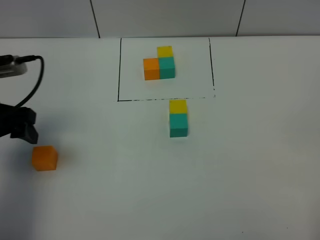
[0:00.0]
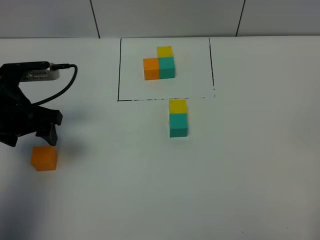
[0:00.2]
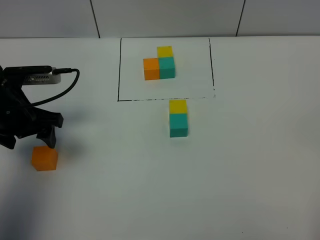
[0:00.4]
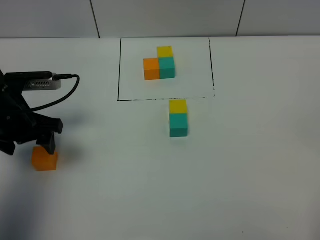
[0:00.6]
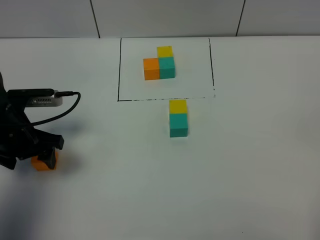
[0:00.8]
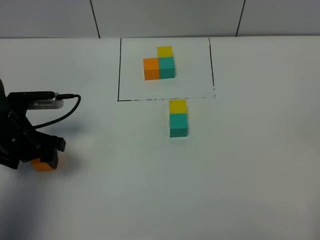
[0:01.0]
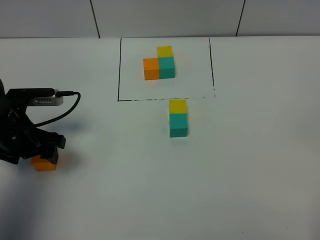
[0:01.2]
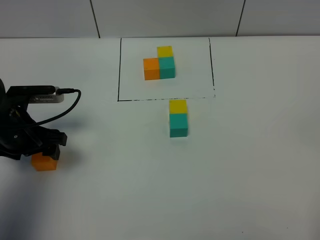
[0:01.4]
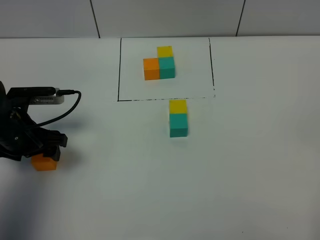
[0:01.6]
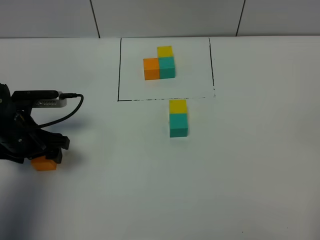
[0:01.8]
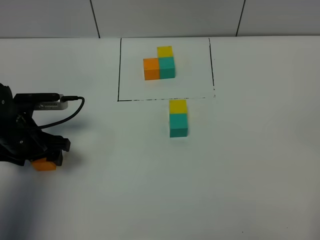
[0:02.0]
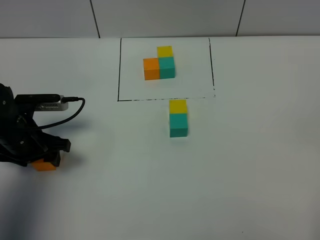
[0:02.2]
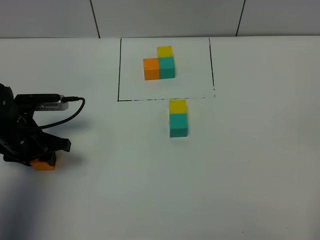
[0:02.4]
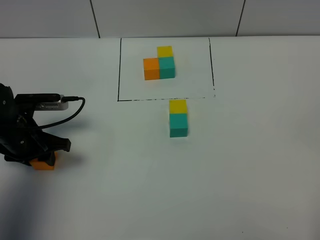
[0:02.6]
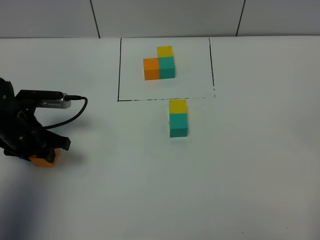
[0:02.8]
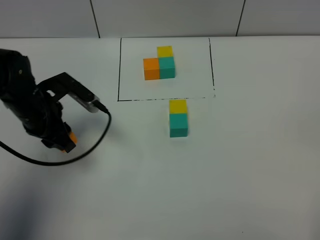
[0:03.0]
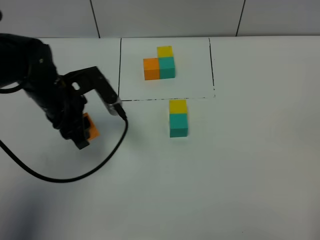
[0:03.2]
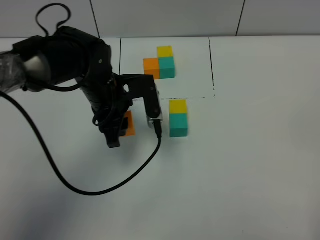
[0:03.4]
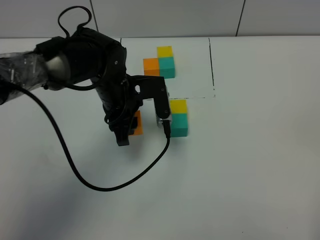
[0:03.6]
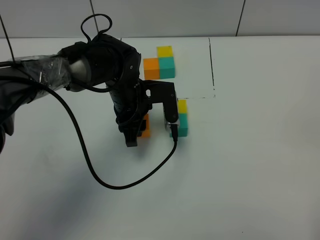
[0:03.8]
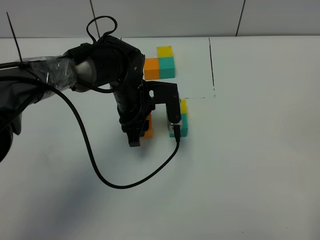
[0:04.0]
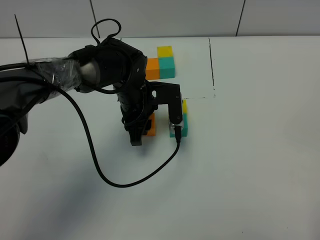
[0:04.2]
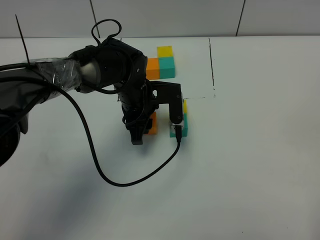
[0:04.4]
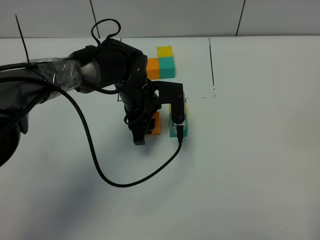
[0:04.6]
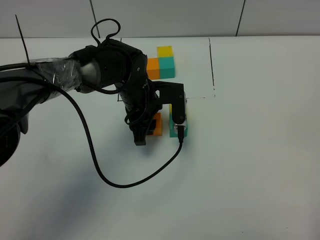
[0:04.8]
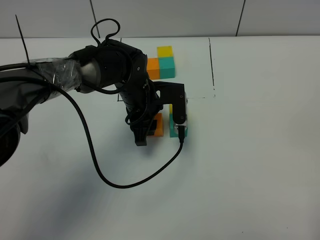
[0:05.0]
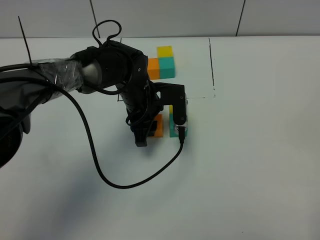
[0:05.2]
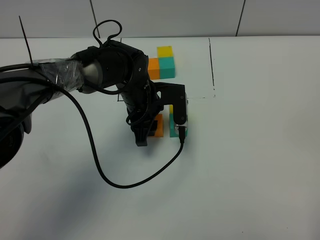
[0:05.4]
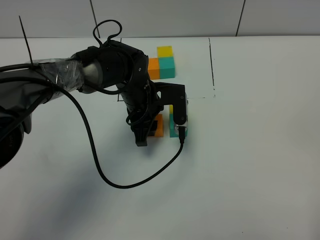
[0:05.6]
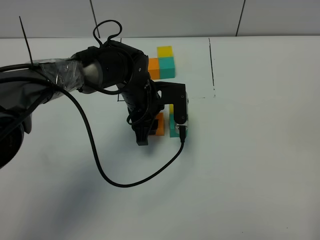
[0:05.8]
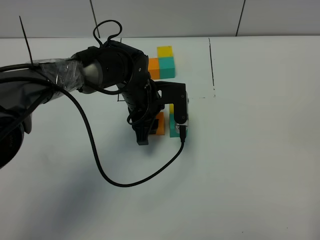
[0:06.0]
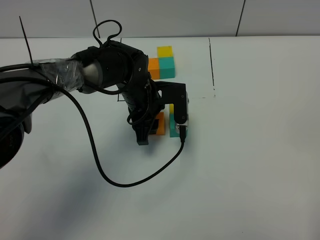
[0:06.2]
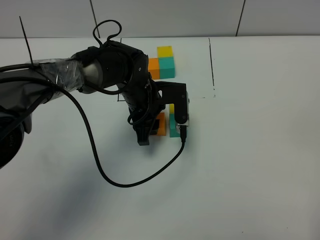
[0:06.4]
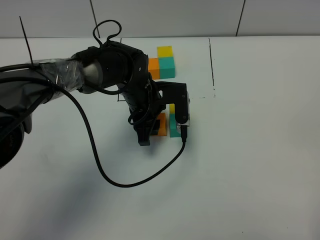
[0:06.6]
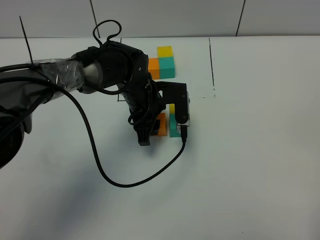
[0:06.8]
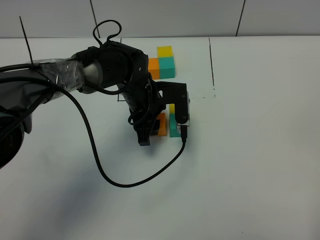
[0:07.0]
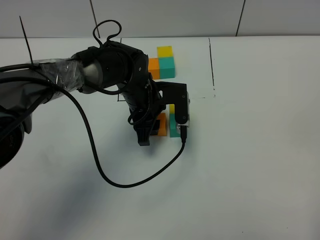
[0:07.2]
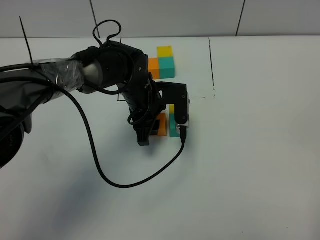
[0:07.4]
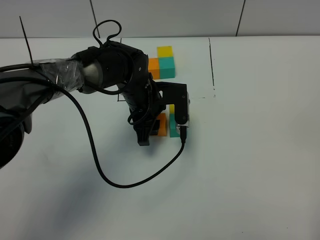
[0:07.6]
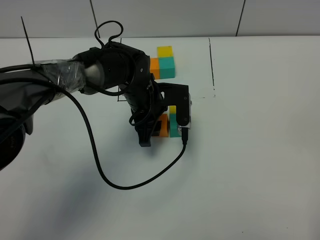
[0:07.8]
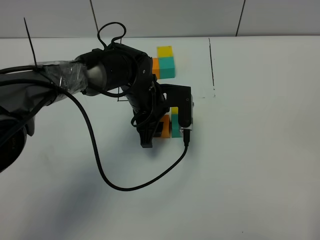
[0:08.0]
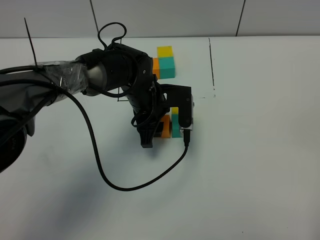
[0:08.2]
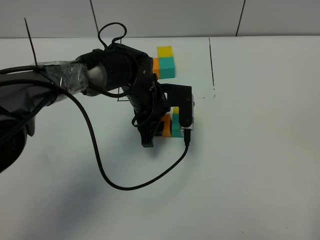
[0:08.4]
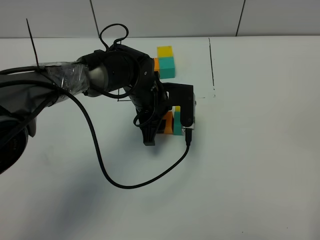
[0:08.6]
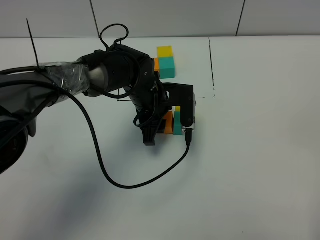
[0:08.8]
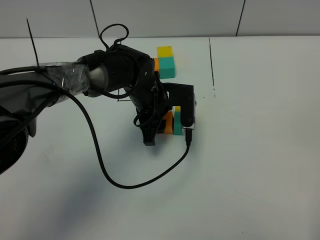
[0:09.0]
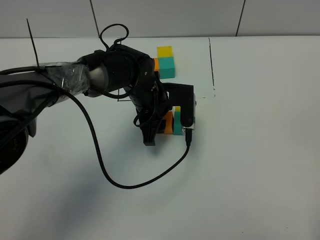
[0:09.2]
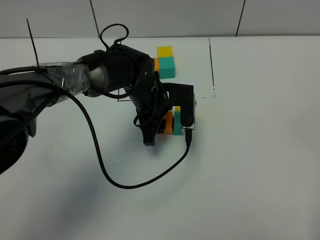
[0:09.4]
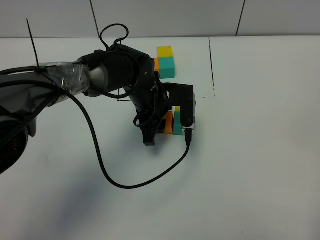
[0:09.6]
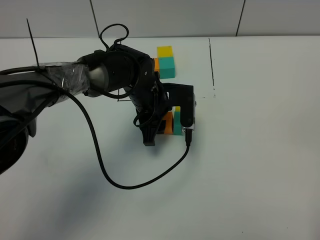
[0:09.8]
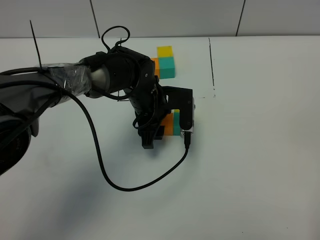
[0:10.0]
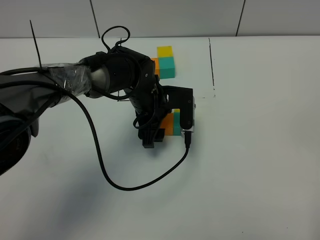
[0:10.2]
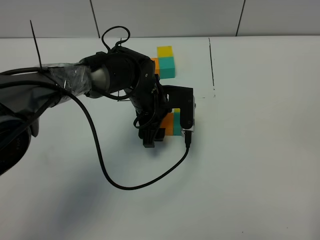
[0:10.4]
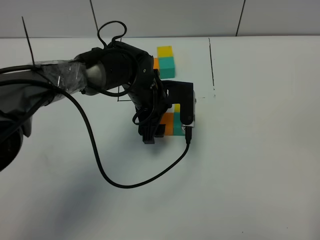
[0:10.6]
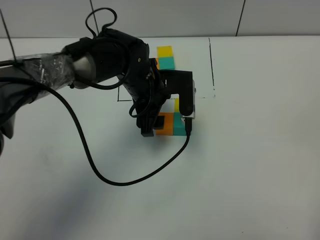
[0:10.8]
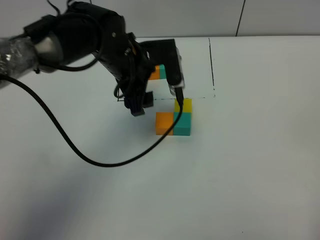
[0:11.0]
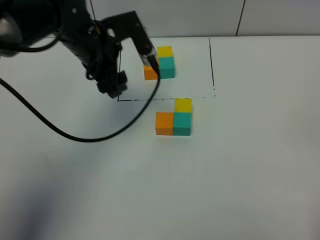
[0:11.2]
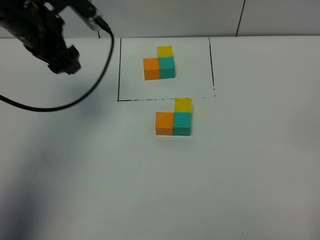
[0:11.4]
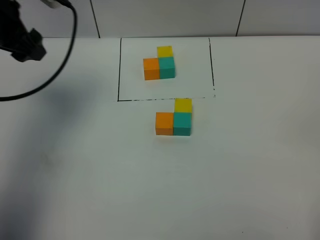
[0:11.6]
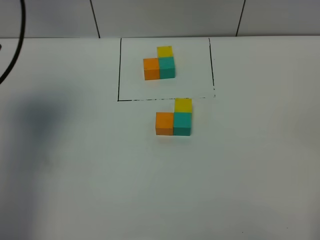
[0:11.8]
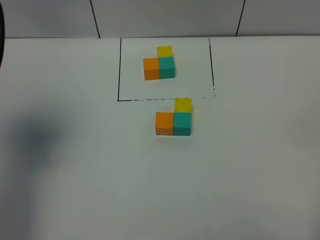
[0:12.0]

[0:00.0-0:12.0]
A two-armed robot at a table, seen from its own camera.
Task of the whole recording: According to the building block template in front, assemble the scattered blocks together.
Step, 0:00.0 to 0:10.4: Put the orange build block on the left of the green build block.
0:00.0 to 0:01.6: The left gripper is displaced downward by some 10 cm.
0:01.6 to 0:03.0: The left gripper moves approximately 5 cm, and closes its fingers.
0:03.0 to 0:04.4: The left gripper is displaced to the right by some 15 cm.
0:04.4 to 0:07.6: The two grippers keep their place.
0:07.6 to 0:09.0: Neither gripper changes place.
0:09.0 to 0:10.4: The left gripper opens up.
0:10.4 to 0:12.0: The left gripper goes some 40 cm to the left, upward and backward.

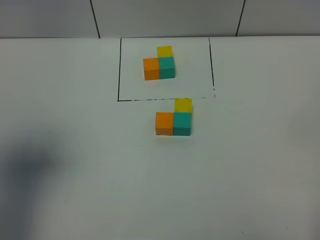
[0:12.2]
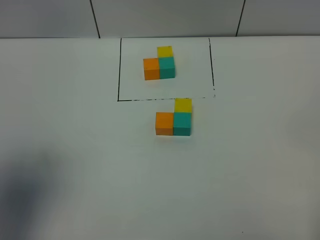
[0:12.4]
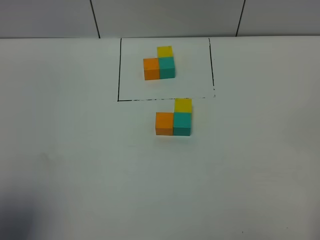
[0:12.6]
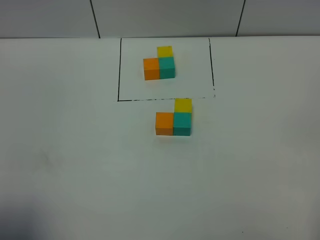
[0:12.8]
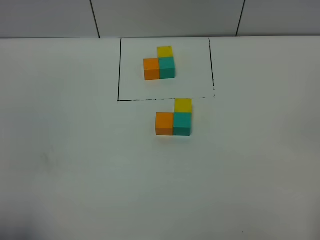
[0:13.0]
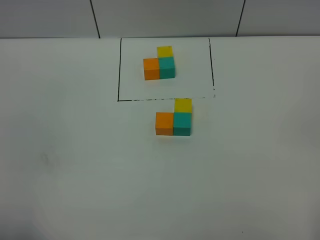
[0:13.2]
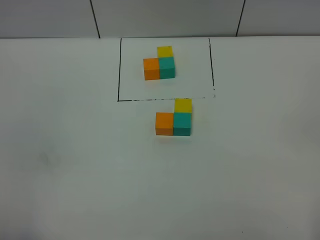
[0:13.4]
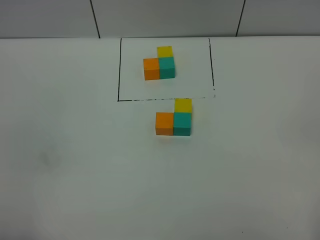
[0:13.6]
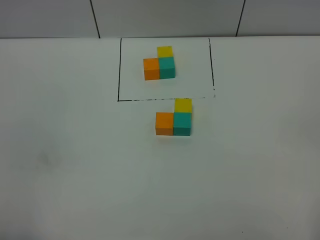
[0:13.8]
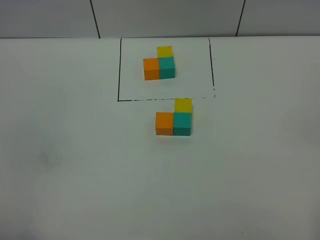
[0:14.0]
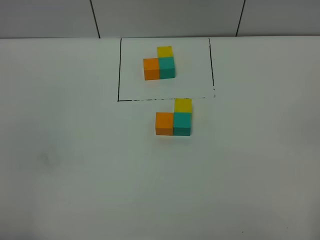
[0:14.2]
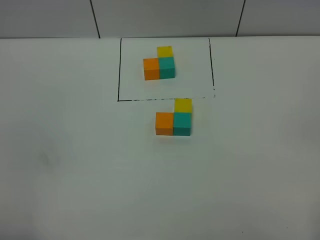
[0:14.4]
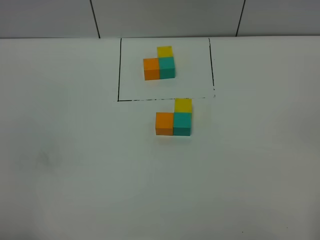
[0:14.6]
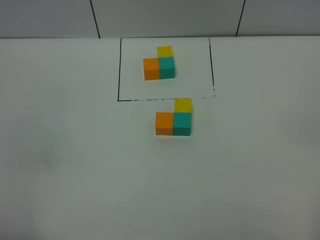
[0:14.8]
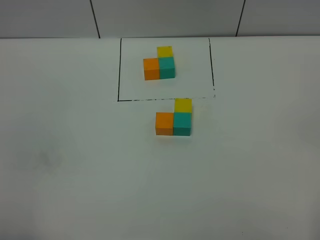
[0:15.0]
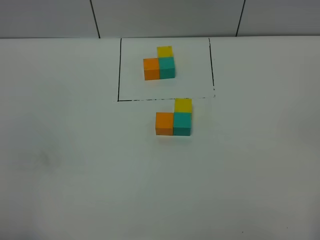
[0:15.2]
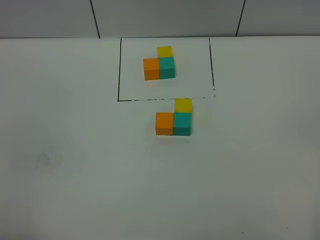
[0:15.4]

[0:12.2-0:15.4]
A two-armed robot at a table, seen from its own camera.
Task of the whole recording: According to the building block template in front, assemble the scattered blocks together.
0:12.2 to 0:13.8: The left gripper is displaced backward and downward by about 20 cm.
0:13.8 to 0:15.4: Neither gripper changes place.

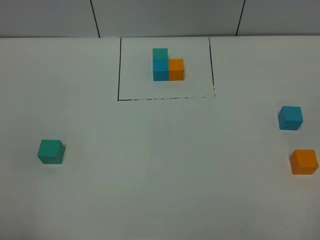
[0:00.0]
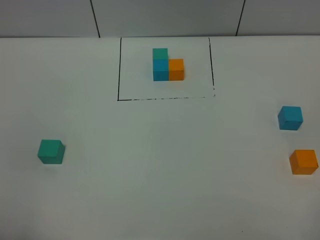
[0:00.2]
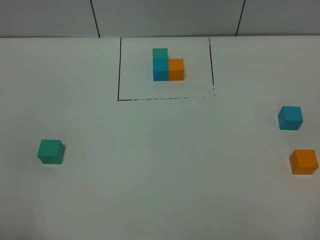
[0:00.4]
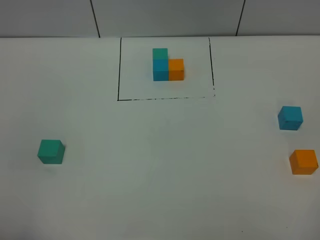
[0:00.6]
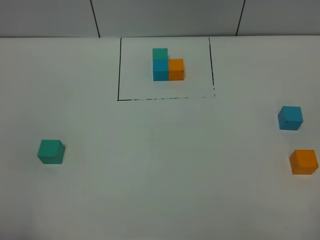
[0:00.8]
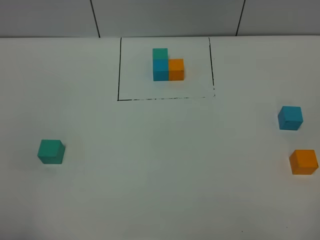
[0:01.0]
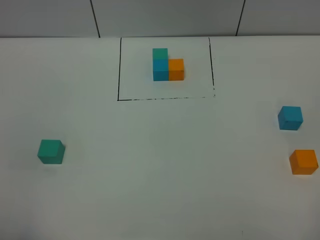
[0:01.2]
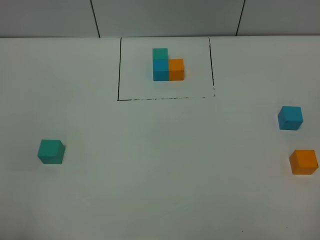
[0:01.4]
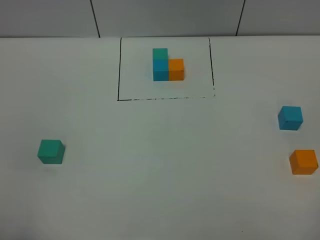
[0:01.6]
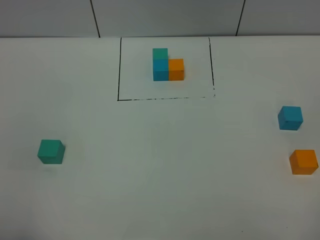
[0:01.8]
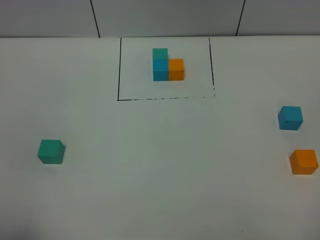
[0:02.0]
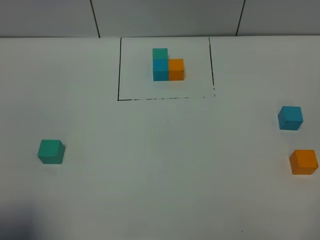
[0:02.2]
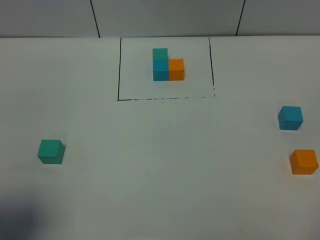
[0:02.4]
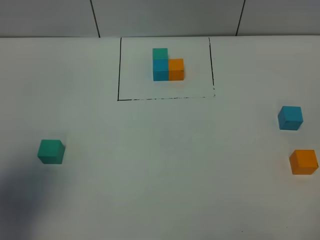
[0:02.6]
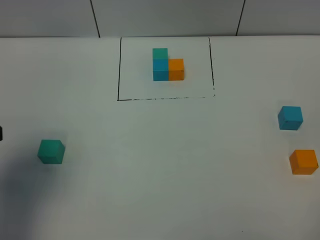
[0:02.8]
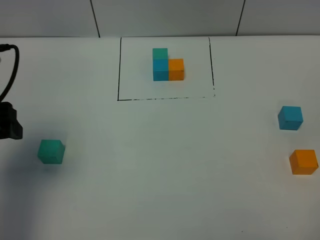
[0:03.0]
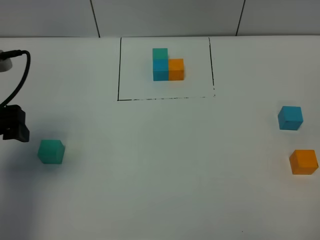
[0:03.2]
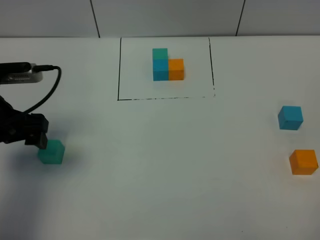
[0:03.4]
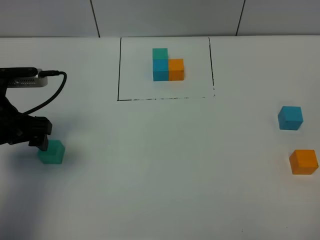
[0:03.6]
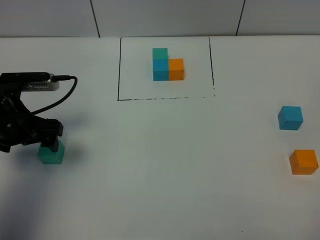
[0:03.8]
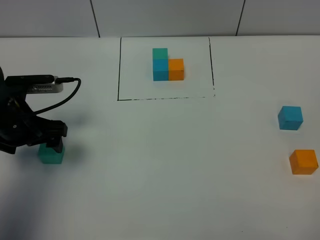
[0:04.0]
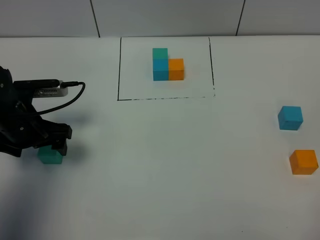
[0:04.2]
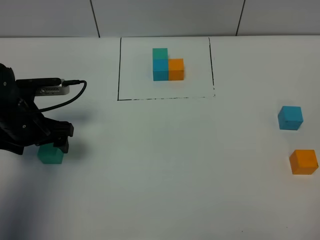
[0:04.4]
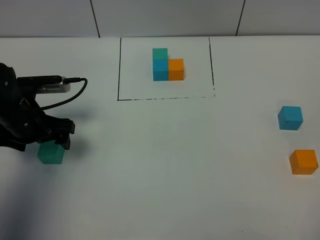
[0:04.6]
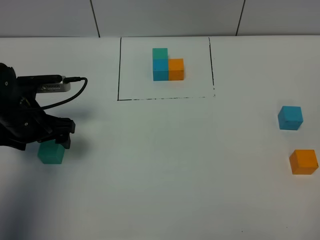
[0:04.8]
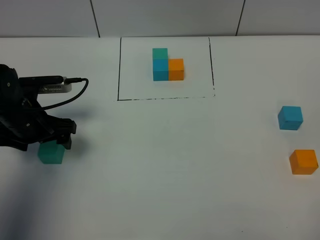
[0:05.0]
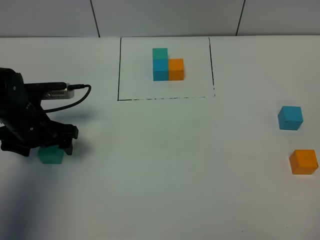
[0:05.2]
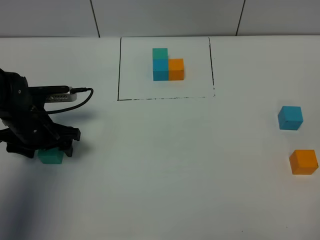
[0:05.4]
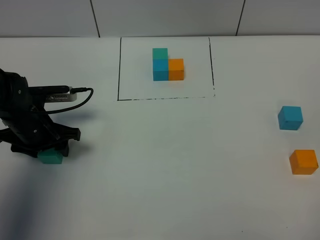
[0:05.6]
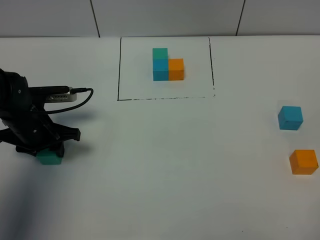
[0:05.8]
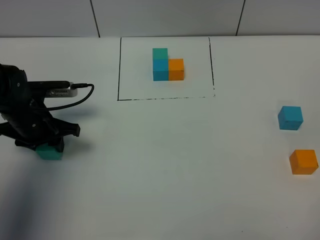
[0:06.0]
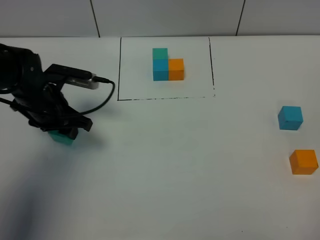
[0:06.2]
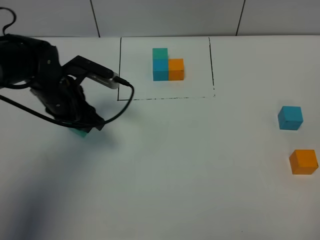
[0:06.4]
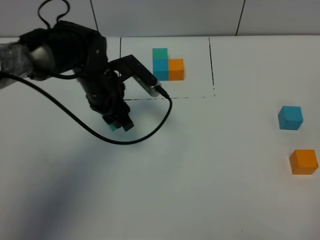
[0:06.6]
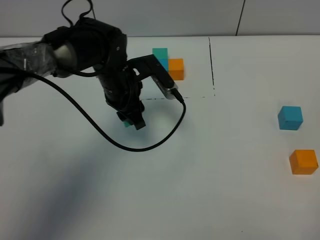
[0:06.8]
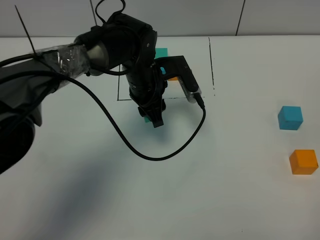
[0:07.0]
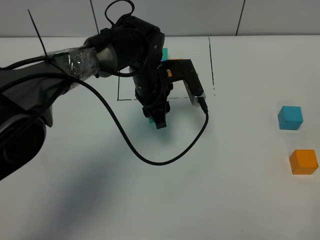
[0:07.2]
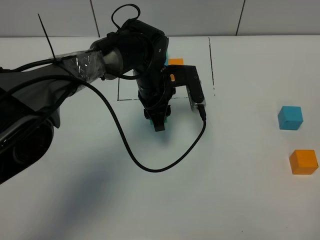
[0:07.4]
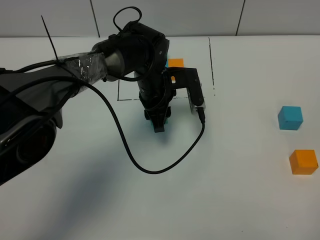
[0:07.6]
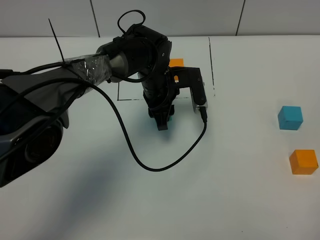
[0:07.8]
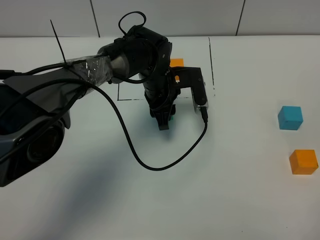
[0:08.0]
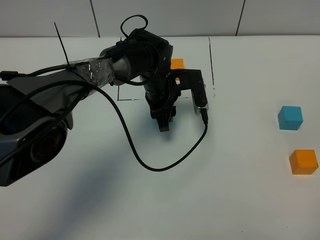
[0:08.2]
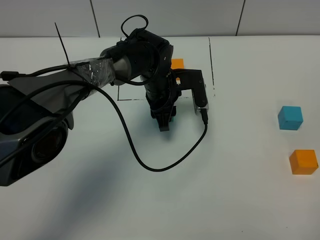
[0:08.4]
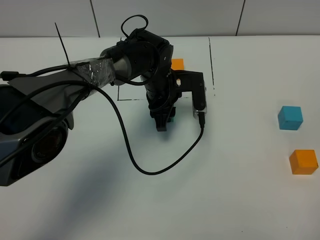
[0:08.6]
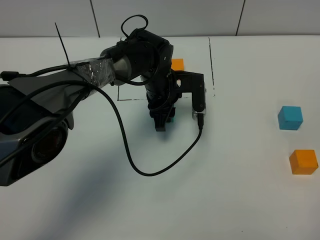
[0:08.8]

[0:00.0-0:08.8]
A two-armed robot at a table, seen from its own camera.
Task of the whole recording: According to the building block template in front, assemble the scattered blocks together.
0:00.0 to 0:01.4: Both grippers stay about where they are.
0:01.4 to 0:03.0: The left gripper shifts roughly 25 cm forward.
0:03.0 to 0:04.4: The left gripper travels downward and forward by about 15 cm.
0:04.4 to 0:05.8: The left gripper closes up.
0:05.8 to 0:07.4: The left gripper moves to the right, some 25 cm.
0:07.4 to 0:08.8: The grippers move only a little.
